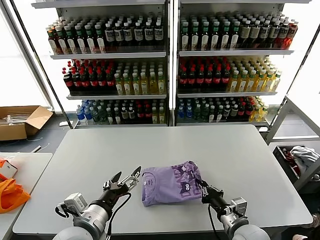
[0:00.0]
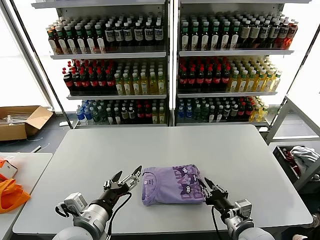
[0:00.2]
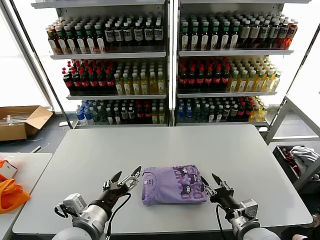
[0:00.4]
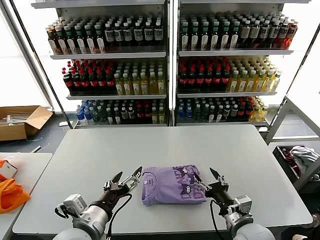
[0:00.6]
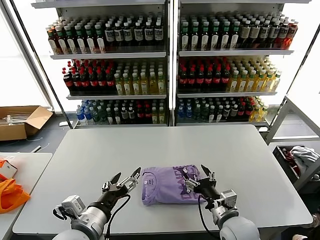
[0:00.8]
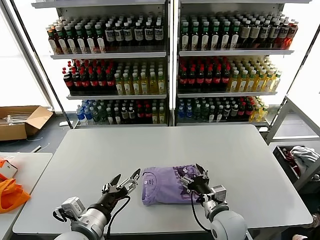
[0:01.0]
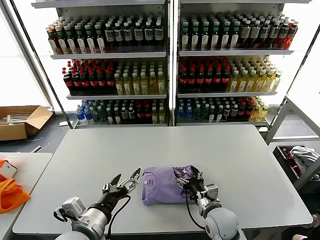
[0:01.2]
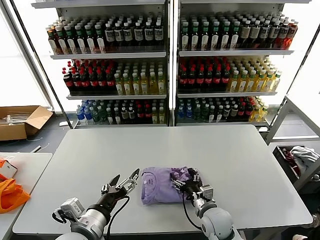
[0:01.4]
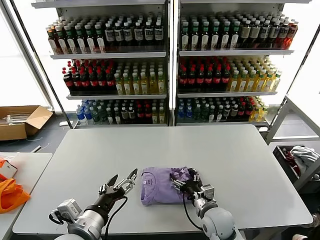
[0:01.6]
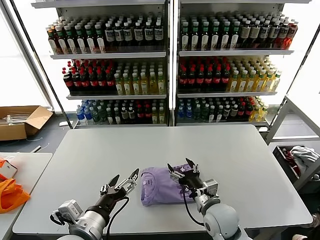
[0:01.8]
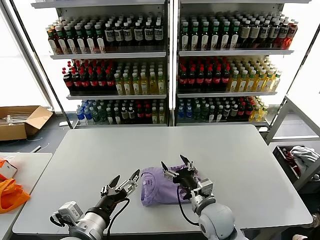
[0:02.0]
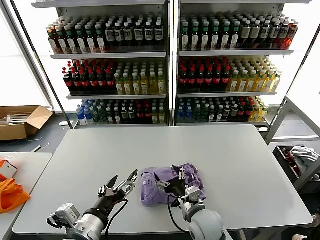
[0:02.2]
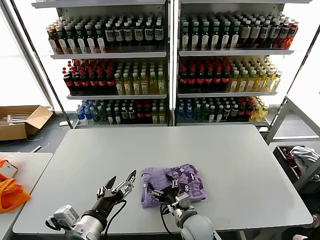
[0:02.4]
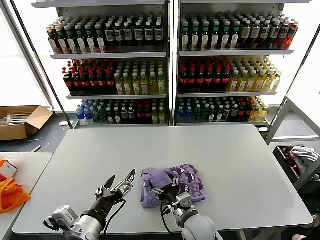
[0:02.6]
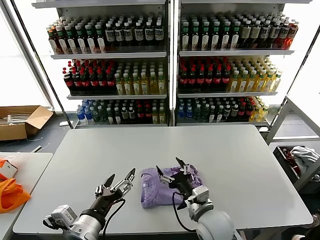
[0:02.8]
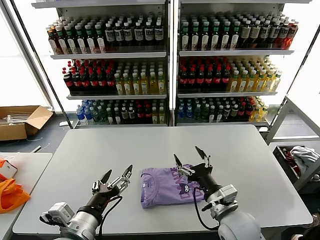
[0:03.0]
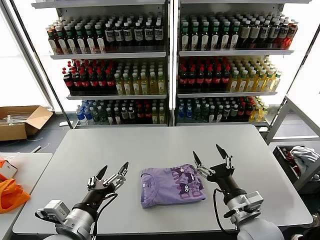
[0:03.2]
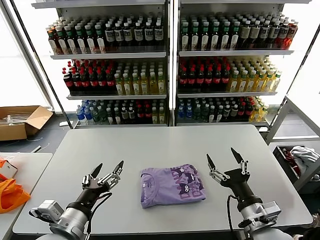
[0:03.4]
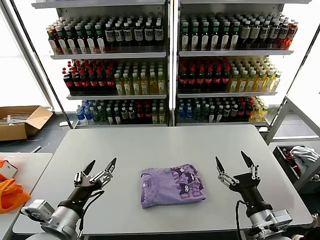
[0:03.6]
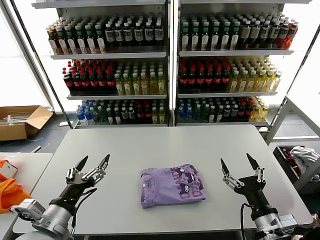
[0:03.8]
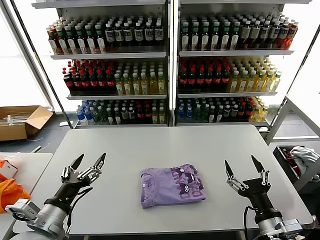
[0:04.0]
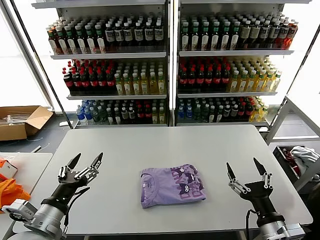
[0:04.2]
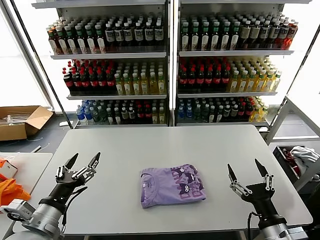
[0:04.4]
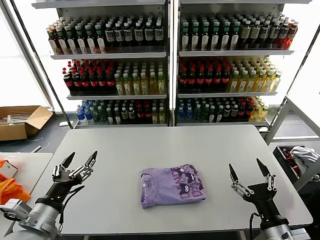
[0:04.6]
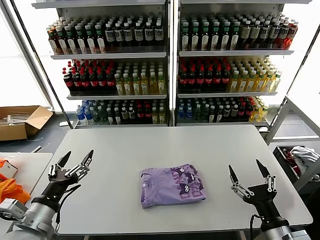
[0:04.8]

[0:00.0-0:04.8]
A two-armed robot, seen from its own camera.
Task of the whole recording: fold and organize the clothes.
Step, 0:00.0 to 0:02.6: Drag the clothes to the center of the table.
0:00.0 to 0:01.6: The right gripper is displaced to the left and forward by roughly 10 cm, and opens.
0:01.6 to 0:03.2: The right gripper goes up and down, approximately 10 cm each way, reversing 2 times.
0:03.2 to 0:04.8: The left gripper shifts roughly 10 cm to the left; the right gripper travels backward and to the right by roughly 10 cm.
